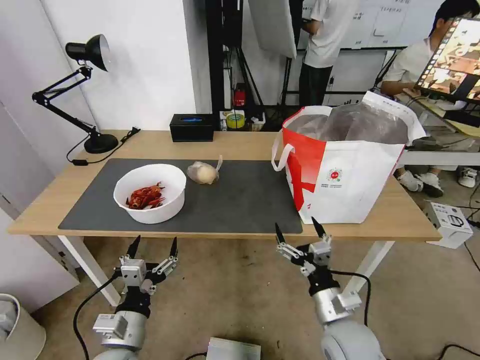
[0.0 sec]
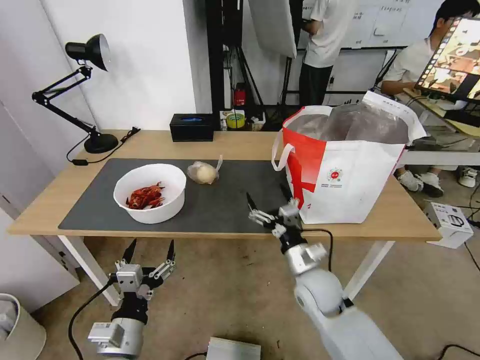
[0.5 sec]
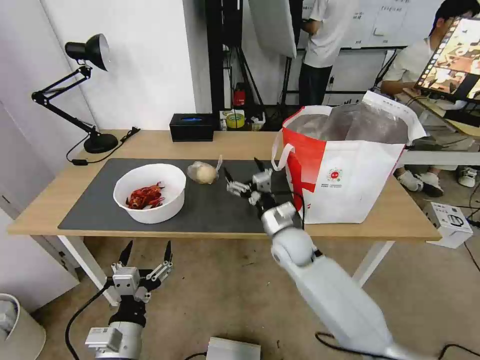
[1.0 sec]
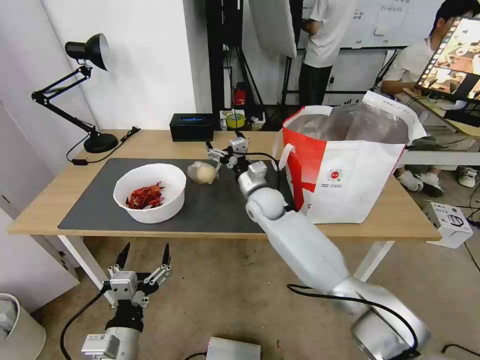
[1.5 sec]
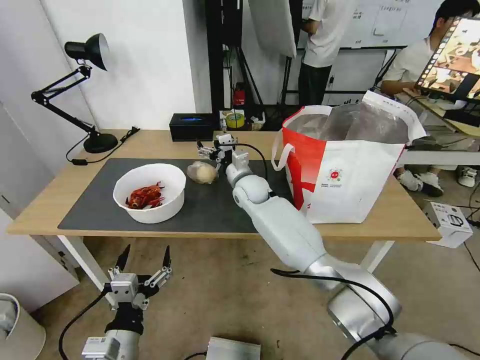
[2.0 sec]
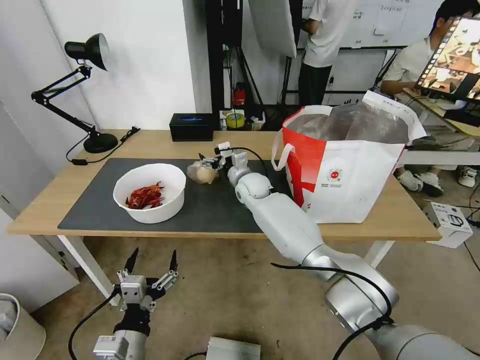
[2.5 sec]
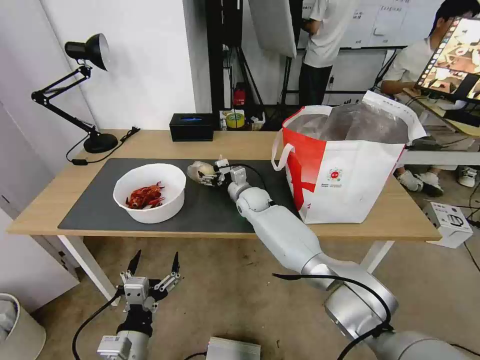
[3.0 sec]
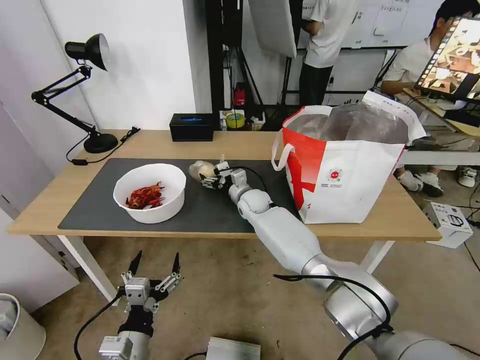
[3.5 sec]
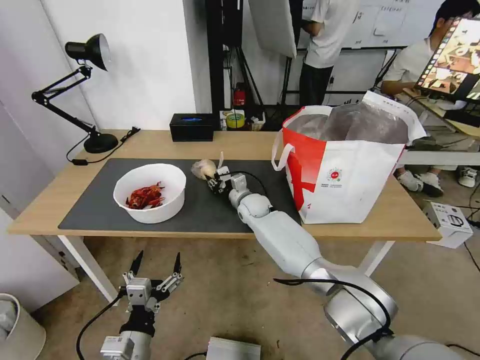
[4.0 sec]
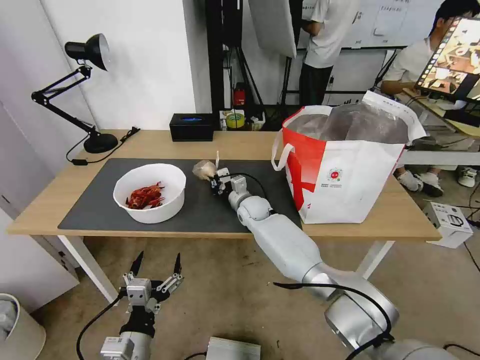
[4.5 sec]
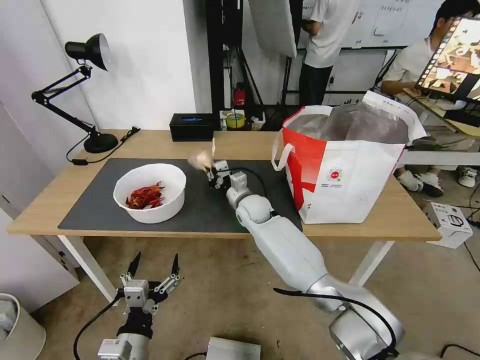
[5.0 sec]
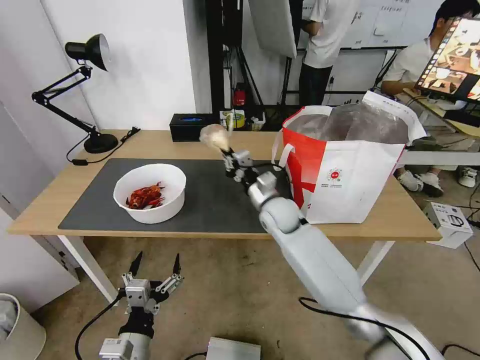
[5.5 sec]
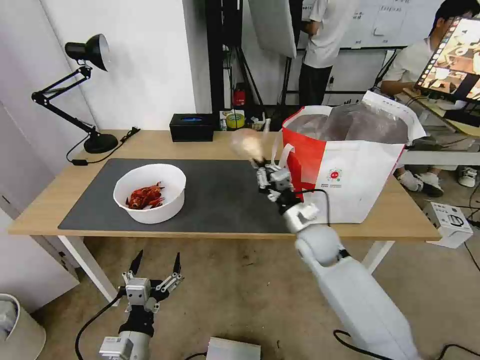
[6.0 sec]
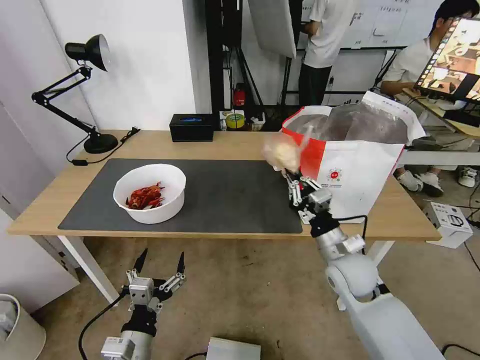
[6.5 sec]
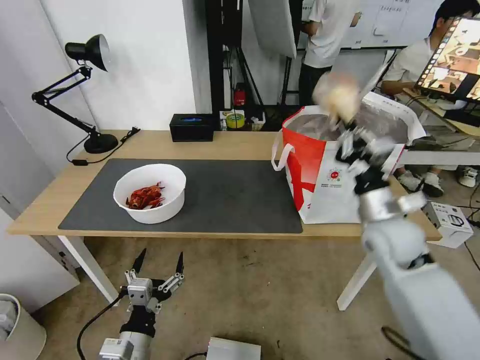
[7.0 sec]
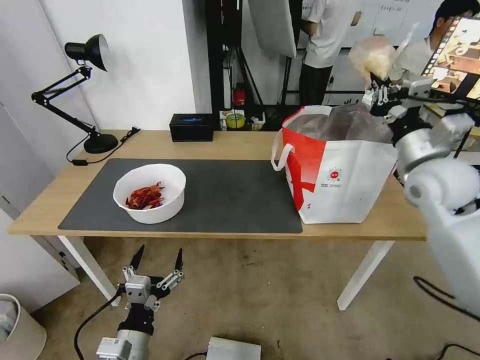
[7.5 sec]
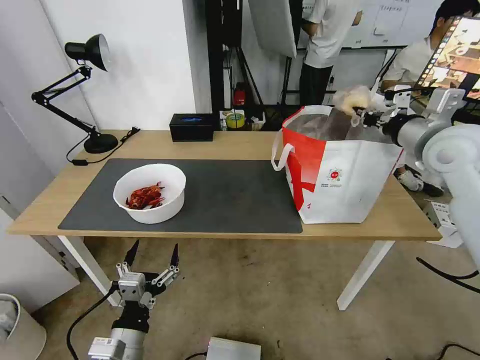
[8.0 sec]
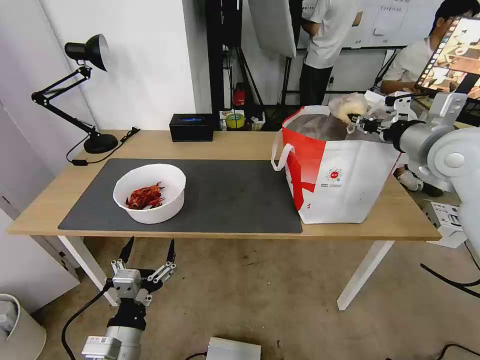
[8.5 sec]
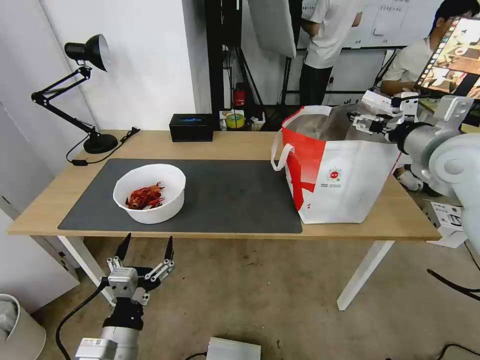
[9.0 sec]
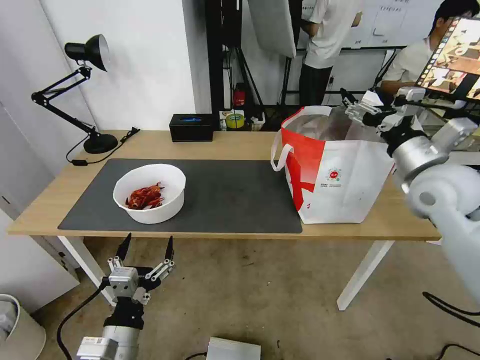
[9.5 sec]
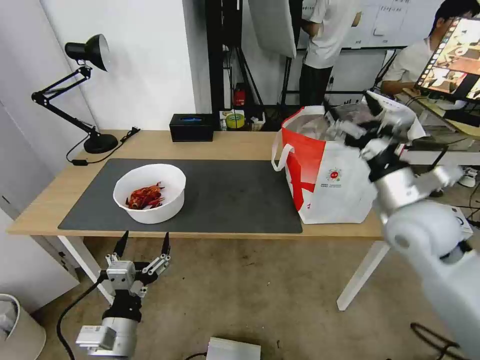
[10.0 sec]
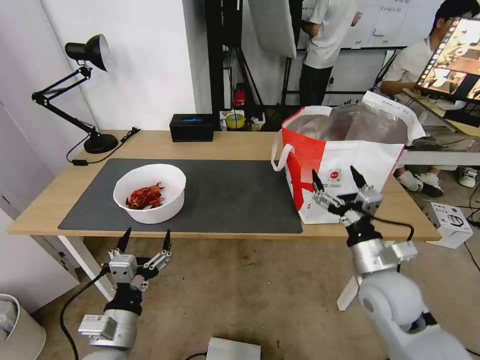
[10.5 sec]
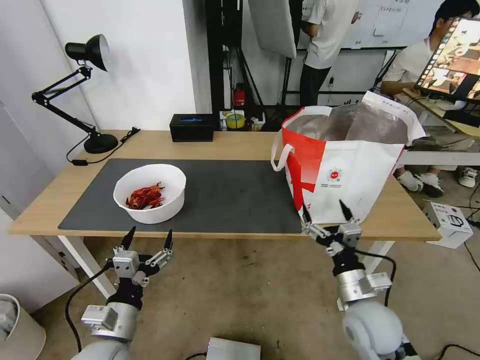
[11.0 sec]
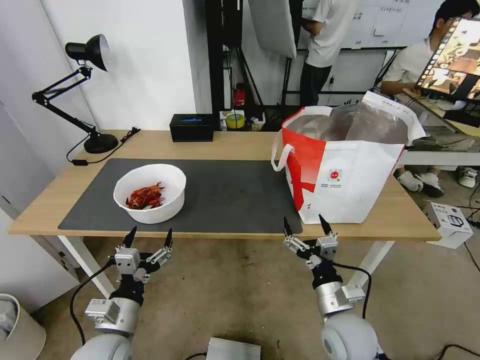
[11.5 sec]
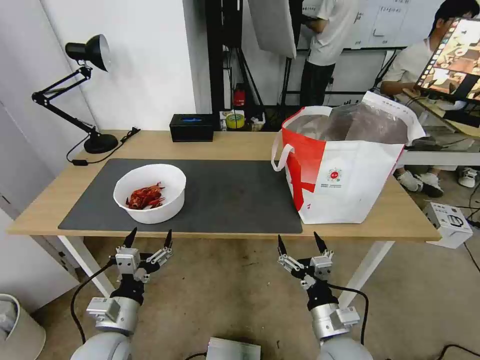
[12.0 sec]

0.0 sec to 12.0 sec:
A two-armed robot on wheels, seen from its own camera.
Task of the whole recording: Pick up the trash from the table and place it into the takeout bag.
0.0 sec to 2.0 sec: The right gripper goes some 40 cm forward and to the left.
2.0 sec to 4.0 sec: The right gripper is displaced downward by approximately 10 cm, and closes its fingers.
4.0 sec to 6.0 sec: The right gripper is displaced backward and to the right by about 20 cm, and closes.
6.0 sec to 8.0 sec: The right gripper moves upward and to the right, approximately 30 cm.
8.0 sec to 10.0 sec: The right gripper travels downward, backward and to the left by approximately 15 cm, and opens.
10.0 sec to 12.0 sec: The left gripper ends up about 5 cm from where it was. The right gripper moves downward, backward and to the left, some 30 cm.

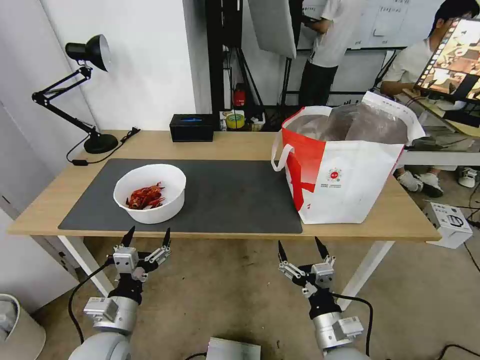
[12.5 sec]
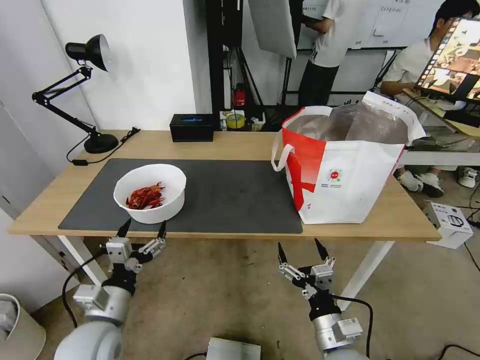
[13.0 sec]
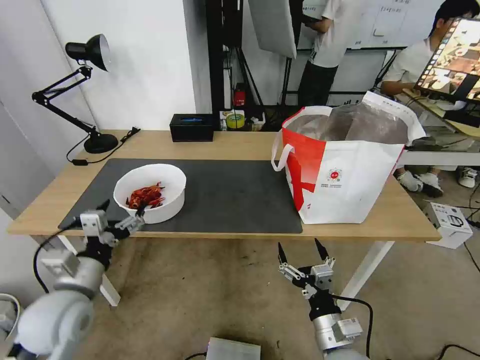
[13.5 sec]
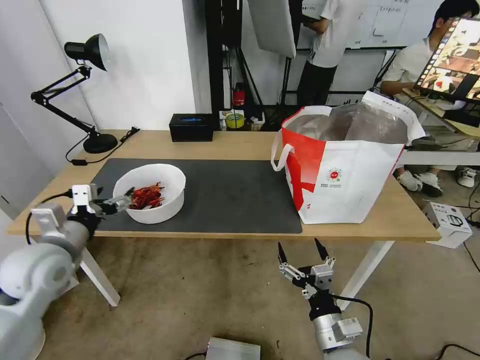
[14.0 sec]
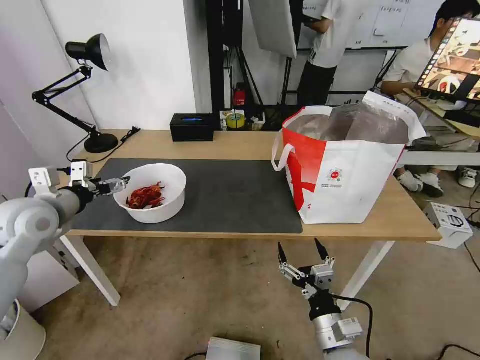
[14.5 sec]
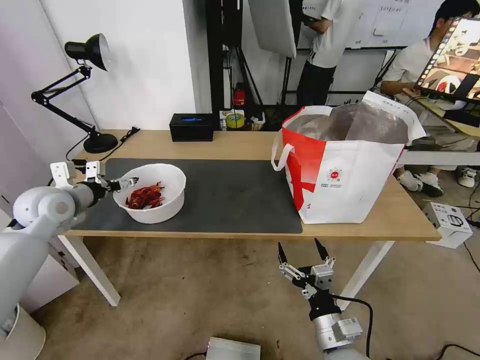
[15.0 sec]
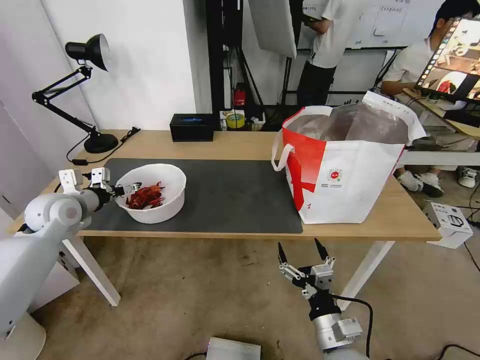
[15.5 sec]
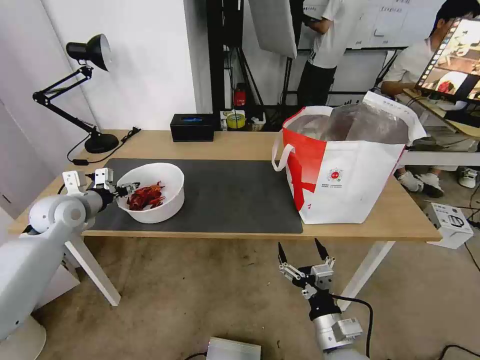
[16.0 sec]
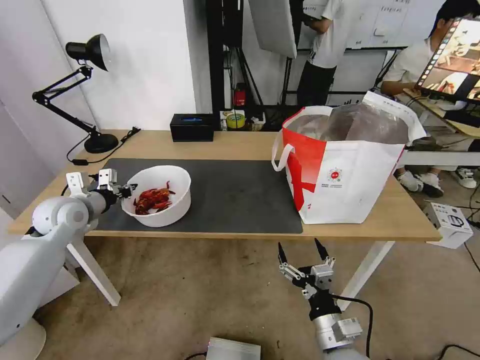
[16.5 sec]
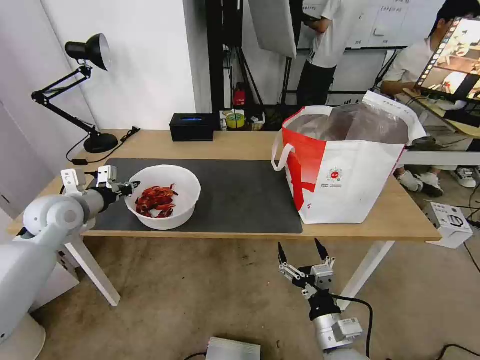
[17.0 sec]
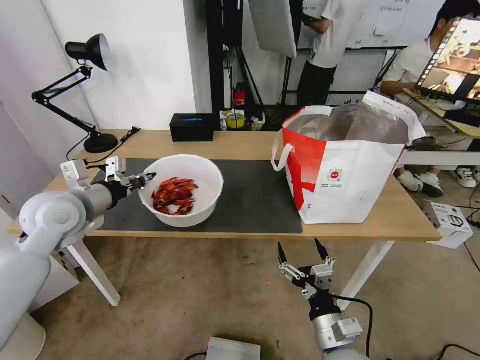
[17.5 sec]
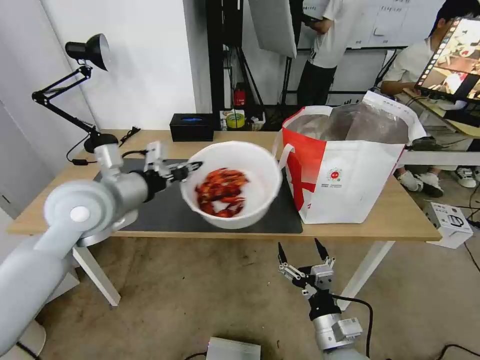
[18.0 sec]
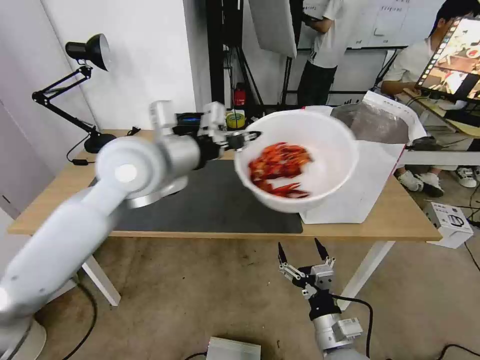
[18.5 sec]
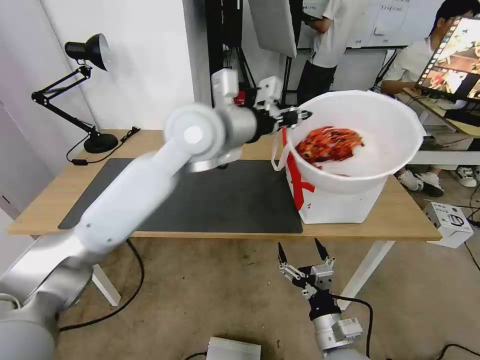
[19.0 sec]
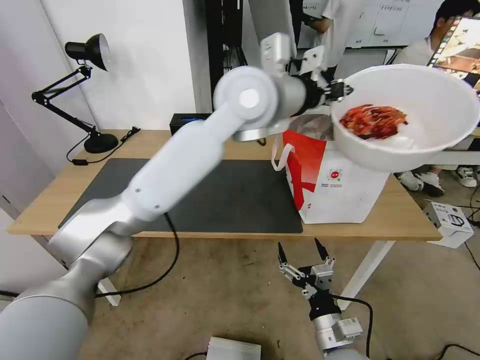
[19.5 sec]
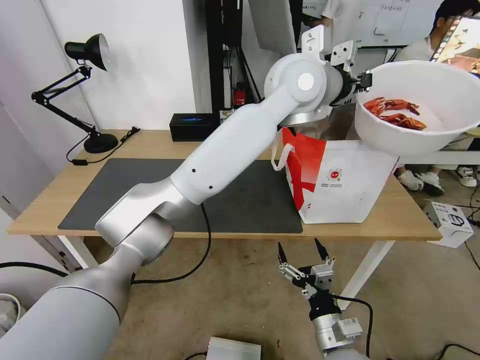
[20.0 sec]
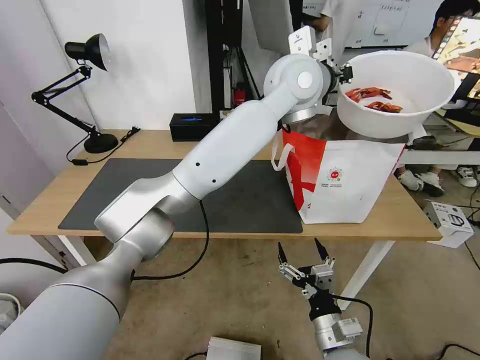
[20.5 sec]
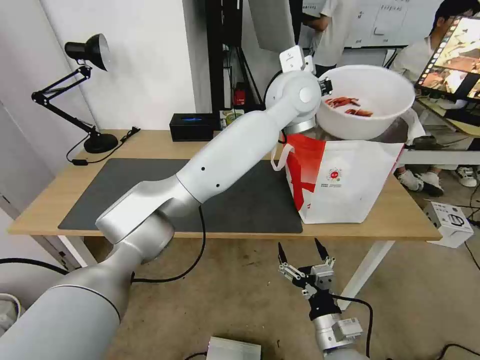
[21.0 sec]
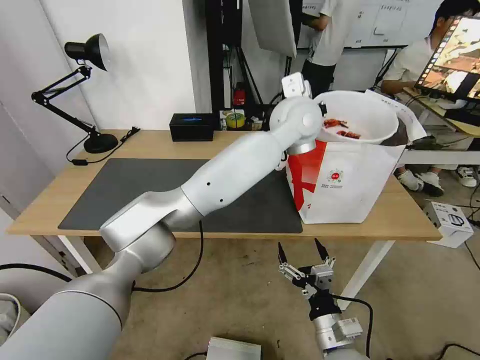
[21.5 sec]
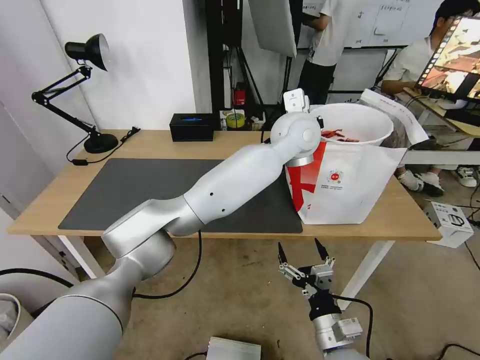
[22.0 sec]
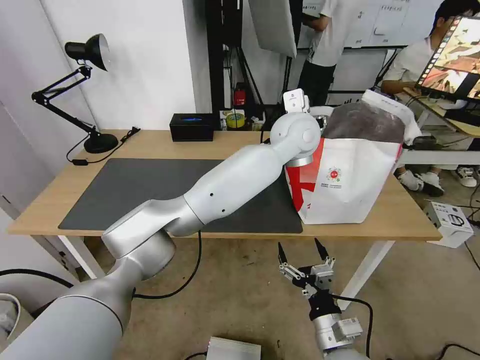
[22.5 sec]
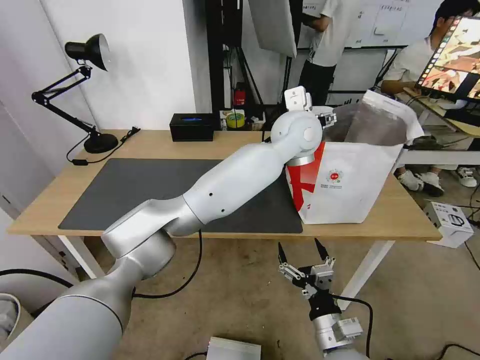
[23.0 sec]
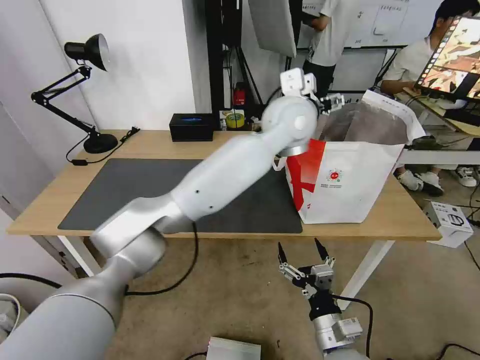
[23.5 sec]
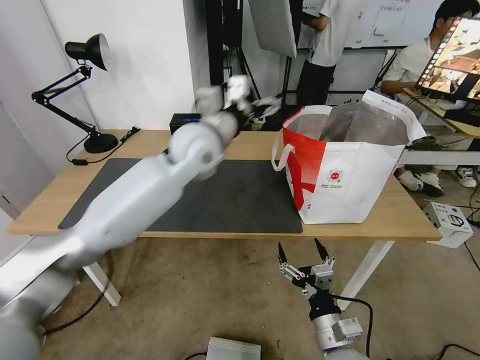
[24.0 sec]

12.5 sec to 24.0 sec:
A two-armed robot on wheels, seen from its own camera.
Task of the whole recording: Pick up the trash from the table and place it into the takeout bag.
12.5 sec to 14.5 sec: The left gripper shifts roughly 30 cm forward, upward and to the left.
14.5 sec to 16.5 sec: The left gripper shifts about 10 cm forward and downward, and closes up.
16.5 sec to 18.5 sec: The left gripper shifts some 30 cm to the right and upward.
18.5 sec to 20.0 sec: The left gripper moves to the right and forward, approximately 30 cm.
20.0 sec to 22.0 sec: The left gripper travels downward by about 10 cm.
22.0 sec to 24.0 sec: The left gripper travels to the left by approximately 20 cm, and opens up.

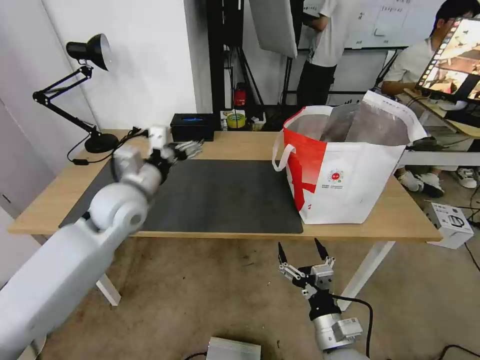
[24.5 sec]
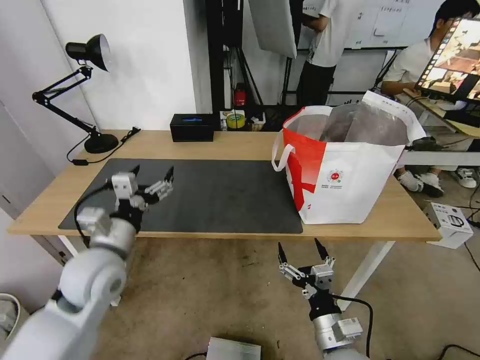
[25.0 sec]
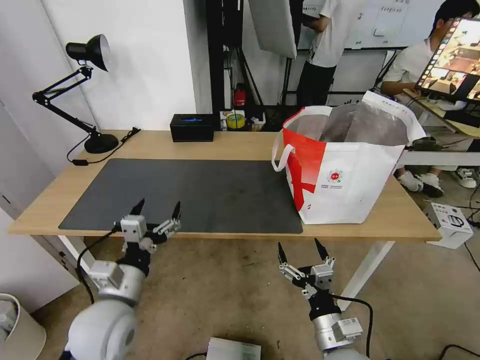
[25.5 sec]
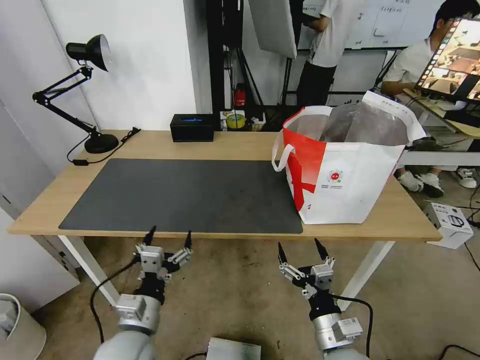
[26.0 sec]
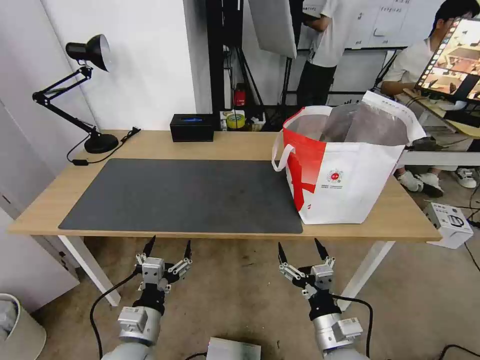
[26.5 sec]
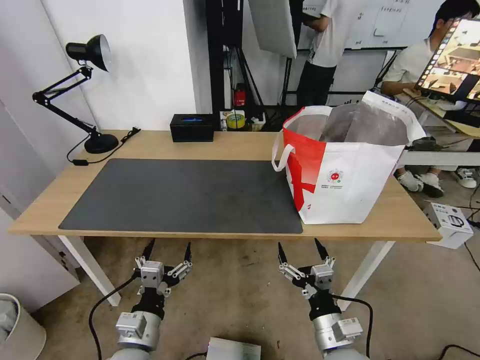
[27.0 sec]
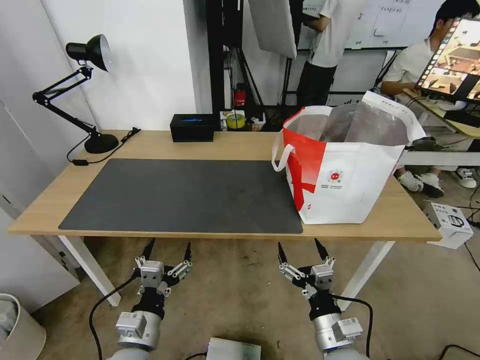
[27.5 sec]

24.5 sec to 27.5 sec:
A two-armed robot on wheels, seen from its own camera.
Task of the whole recording: Pick up the trash from the table and place it into the takeout bag.
24.5 sec to 26.0 sec: The left gripper goes some 25 cm backward and downward.
26.0 sec to 27.5 sec: The grippers move only a little.
